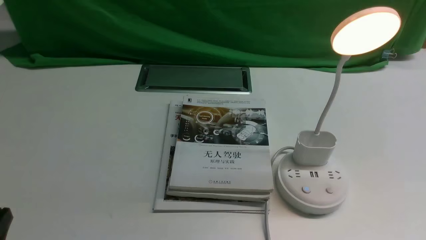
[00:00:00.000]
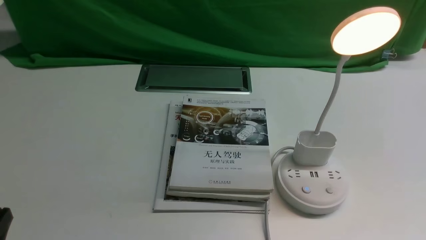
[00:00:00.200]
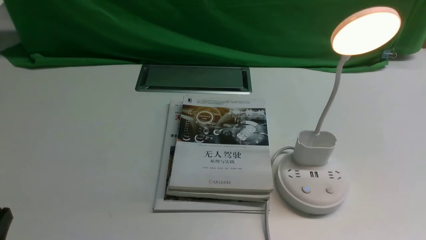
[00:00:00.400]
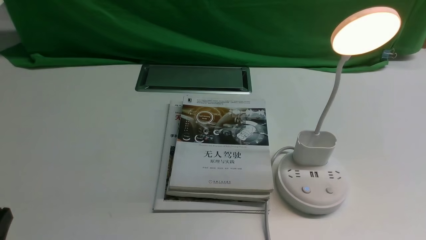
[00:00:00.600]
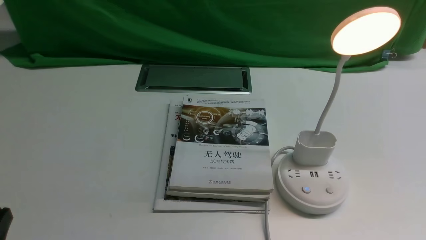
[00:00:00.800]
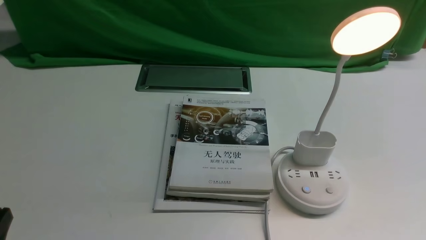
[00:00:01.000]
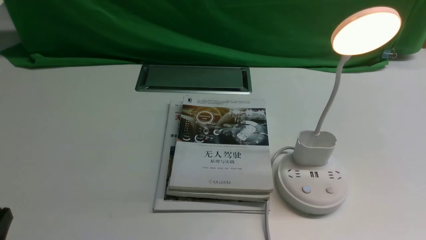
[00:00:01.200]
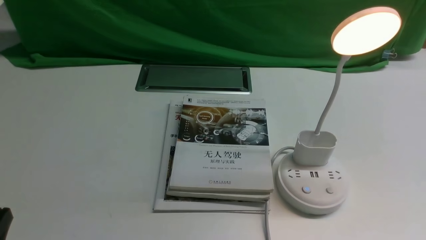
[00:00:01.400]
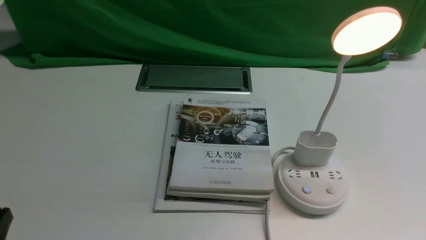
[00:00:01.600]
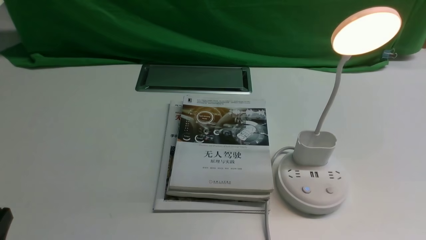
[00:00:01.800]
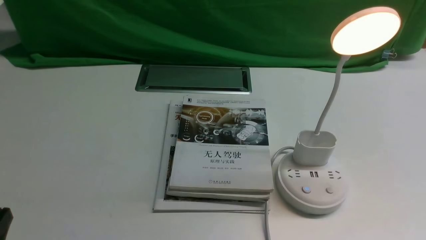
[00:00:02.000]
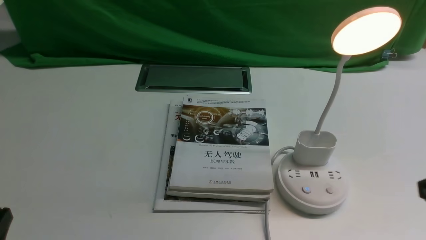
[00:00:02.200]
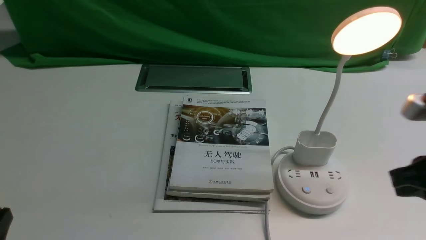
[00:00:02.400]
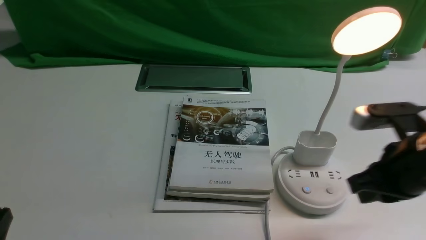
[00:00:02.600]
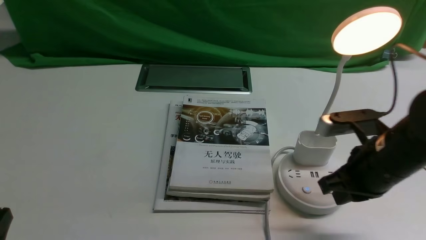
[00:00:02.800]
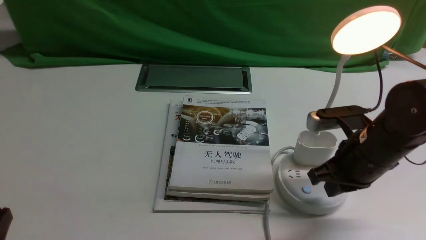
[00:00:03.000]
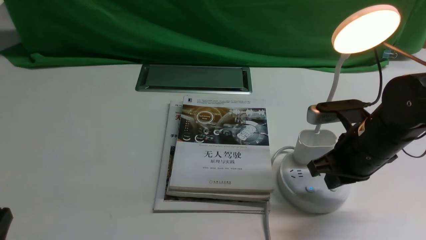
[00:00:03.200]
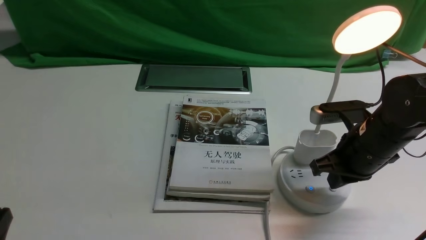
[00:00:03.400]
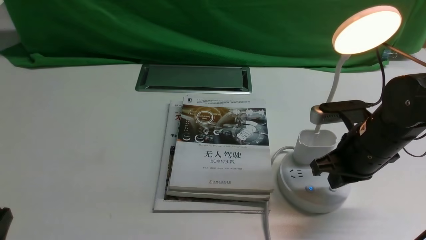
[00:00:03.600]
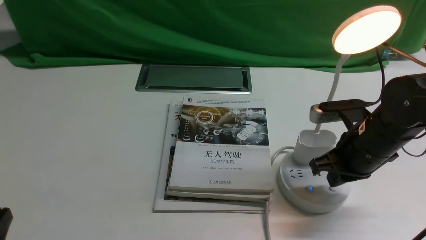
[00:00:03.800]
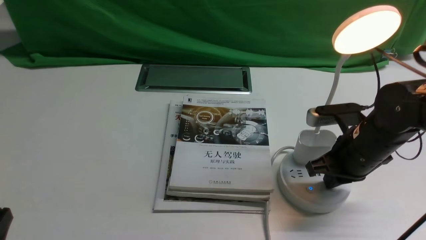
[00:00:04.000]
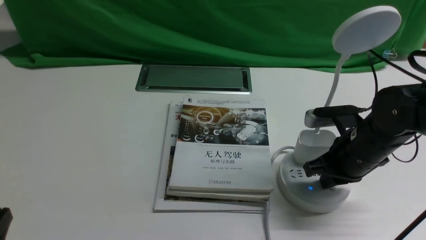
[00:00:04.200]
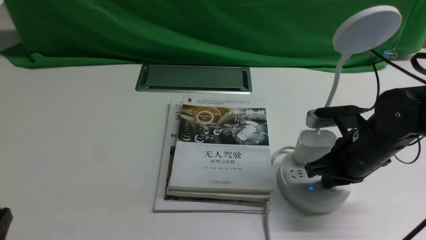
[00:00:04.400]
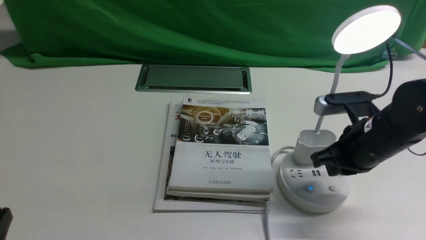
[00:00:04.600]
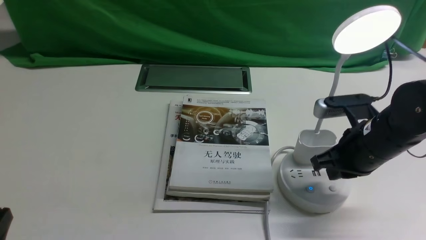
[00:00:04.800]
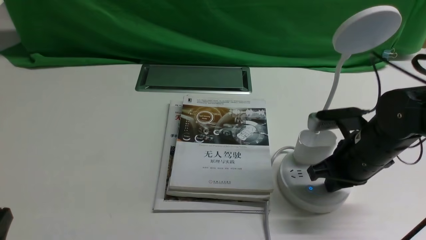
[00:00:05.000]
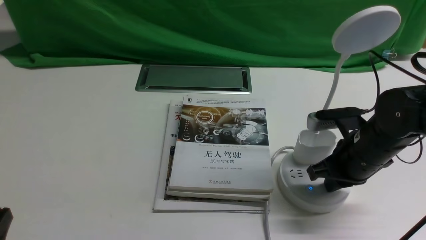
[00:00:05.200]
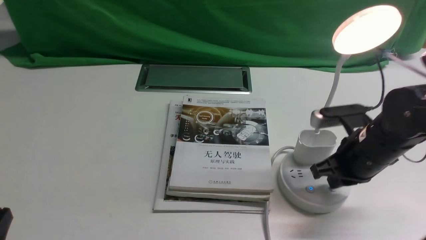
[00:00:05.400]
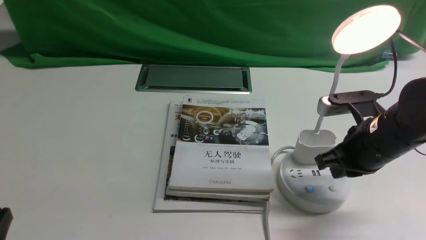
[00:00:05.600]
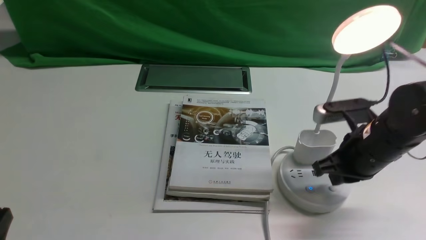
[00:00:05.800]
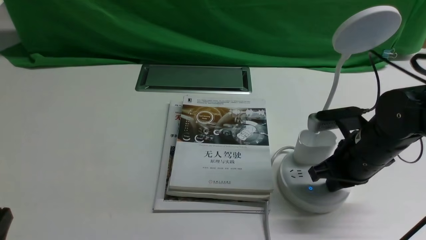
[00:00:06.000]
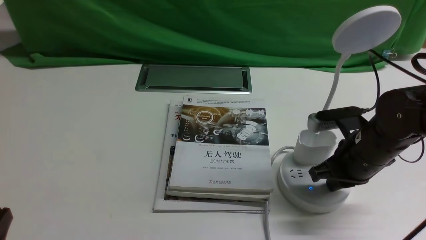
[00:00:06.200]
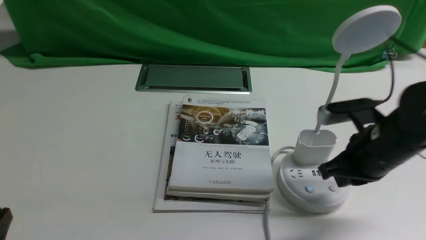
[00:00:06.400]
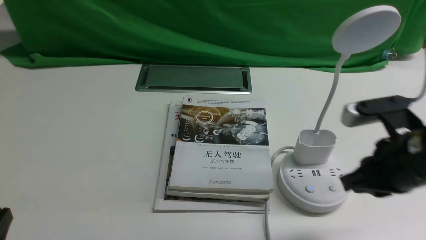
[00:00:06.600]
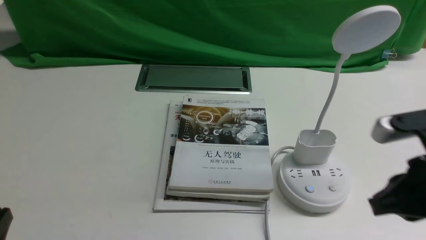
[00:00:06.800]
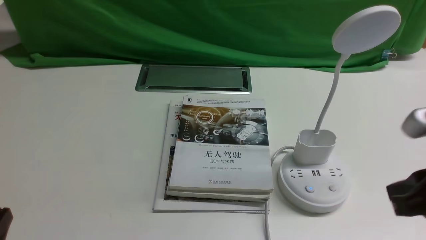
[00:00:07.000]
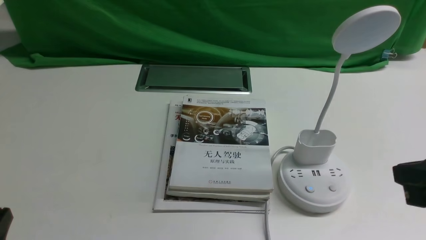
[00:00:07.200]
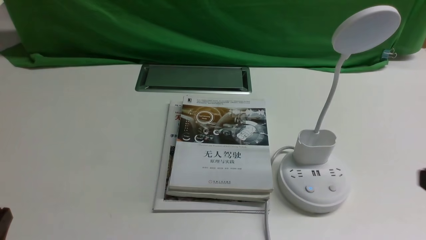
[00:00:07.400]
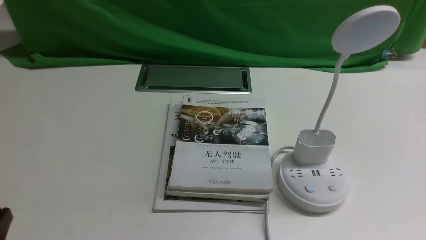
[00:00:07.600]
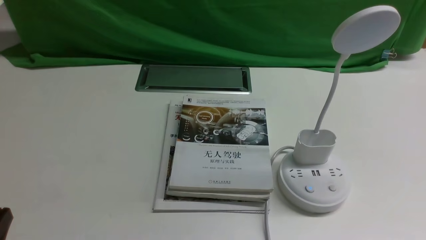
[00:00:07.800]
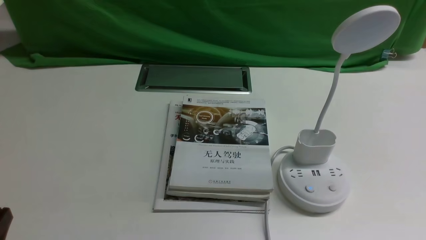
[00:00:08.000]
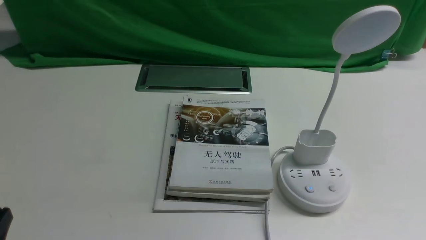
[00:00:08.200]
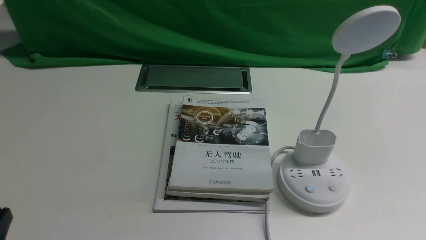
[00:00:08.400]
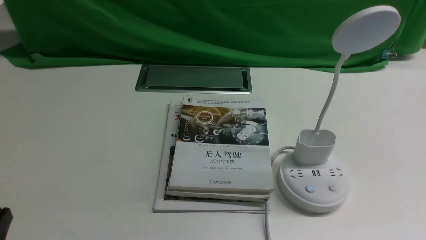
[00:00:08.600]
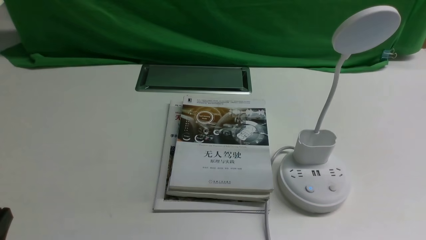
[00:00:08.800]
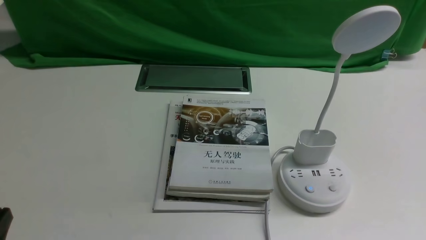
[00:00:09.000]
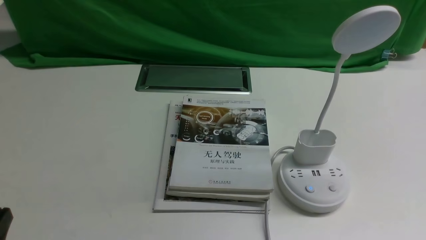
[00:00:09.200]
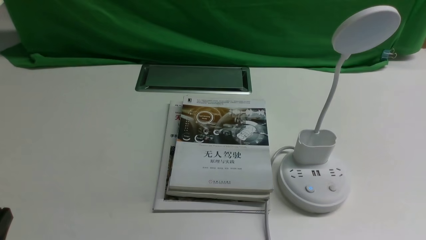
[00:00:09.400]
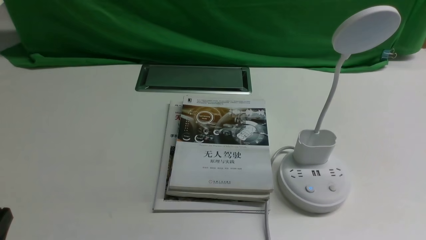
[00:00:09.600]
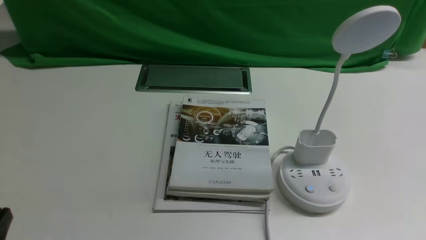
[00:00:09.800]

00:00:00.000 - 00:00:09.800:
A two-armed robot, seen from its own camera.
Task of the whole recording: turn off the desk lamp on the white desktop by hand.
Step, 00:00:00.000 - 00:00:06.400: use the right arm to press the button switch on the lamp holder.
00:00:01.400 - 00:00:02.800: The right gripper goes roughly 20 cm forward and to the left, and closes up.
00:00:02.800 - 00:00:04.200: The right gripper goes about 10 cm forward and downward.
00:00:04.200 - 00:00:05.600: There are only small adjustments of the grippers.
00:00:05.600 - 00:00:07.000: The right gripper is displaced backward and upward by roughly 15 cm.
00:00:07.000 - 00:00:08.400: The right gripper goes approximately 15 cm backward, downward and to the right, and opens up.
00:00:08.400 - 00:00:09.800: Both grippers stay about where they are.
